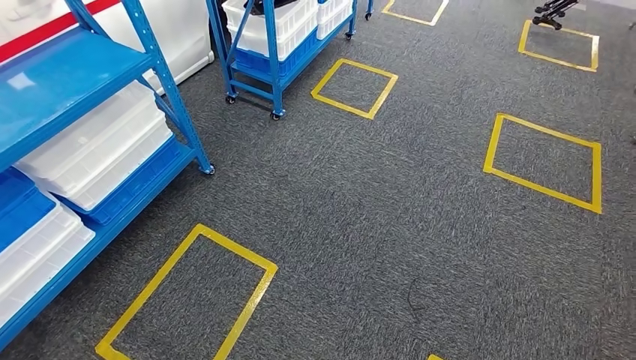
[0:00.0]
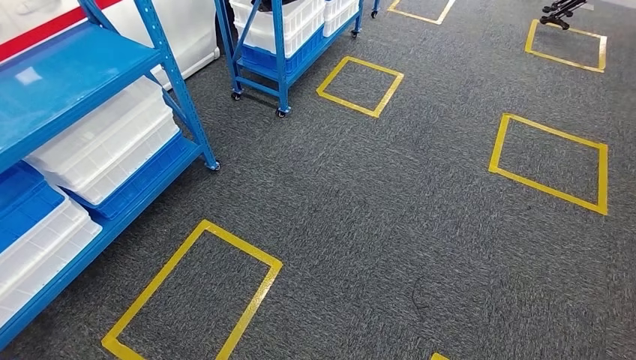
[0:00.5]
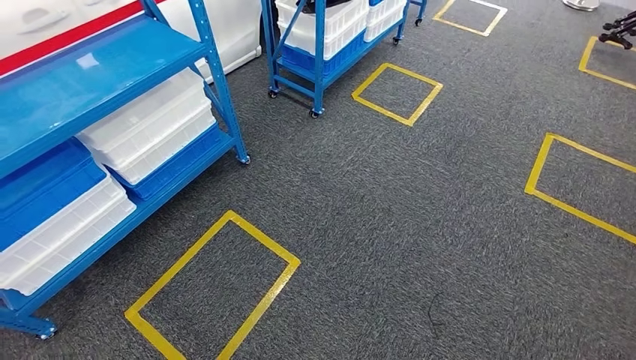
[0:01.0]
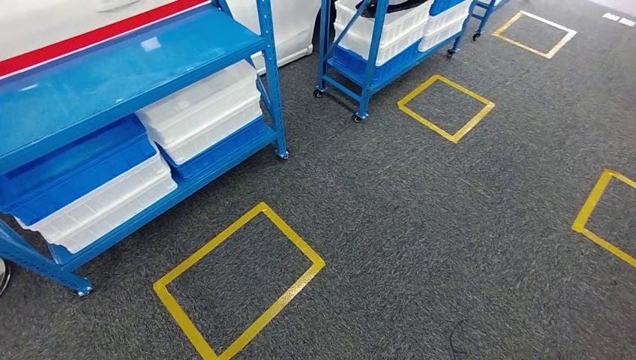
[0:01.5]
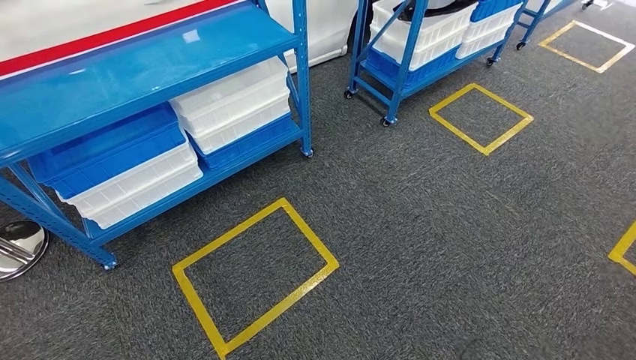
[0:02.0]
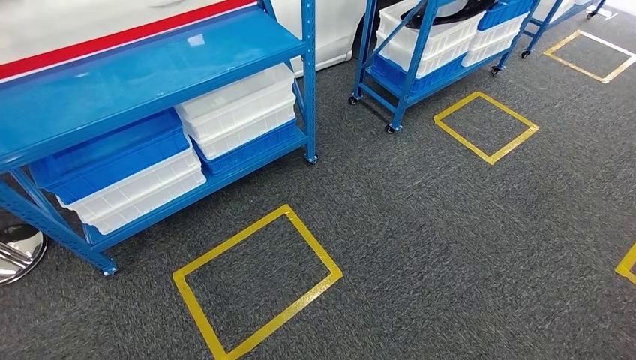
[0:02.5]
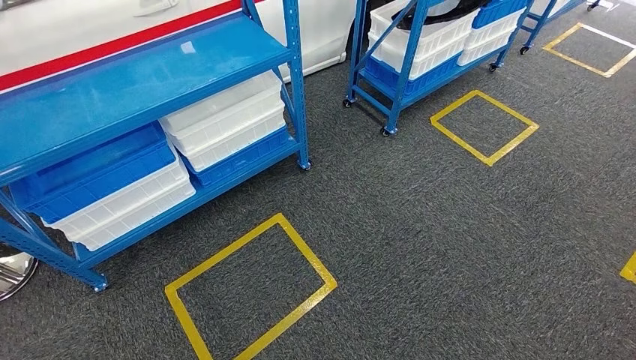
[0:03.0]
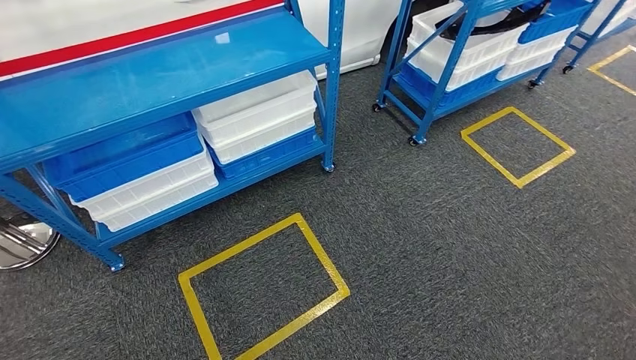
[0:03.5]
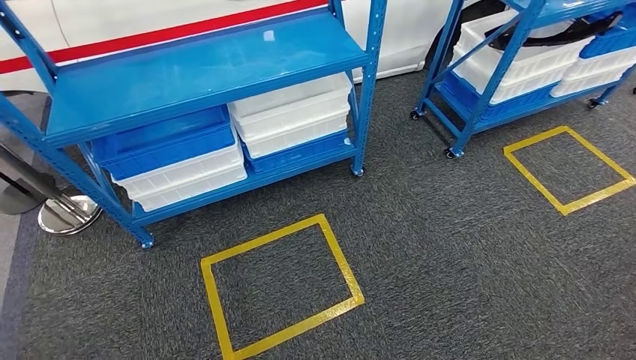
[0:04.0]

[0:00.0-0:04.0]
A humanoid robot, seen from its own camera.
Step, 0:00.0 to 0:04.0: Move to the initial position of the shelf.

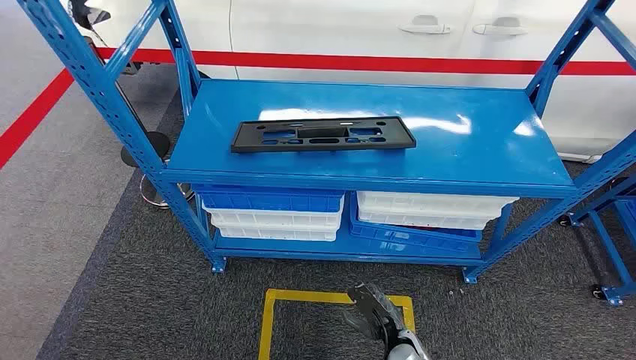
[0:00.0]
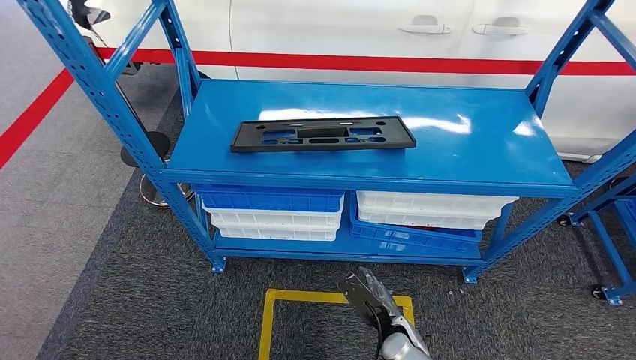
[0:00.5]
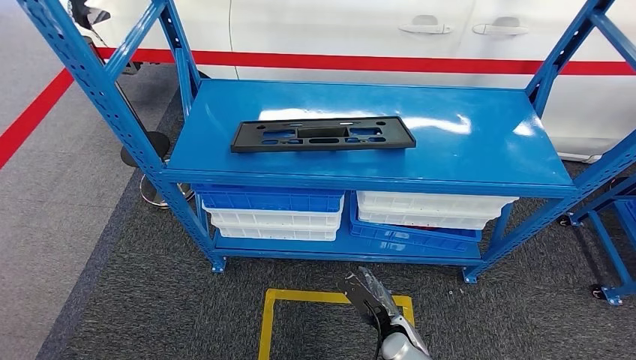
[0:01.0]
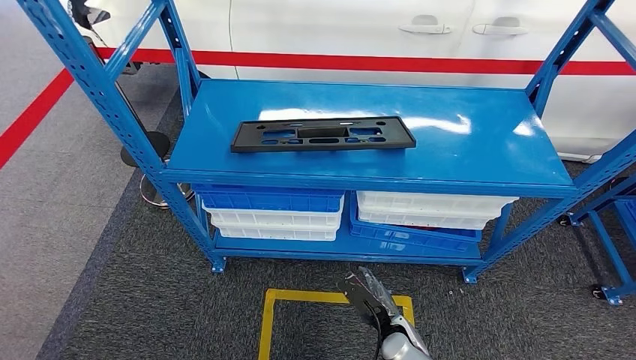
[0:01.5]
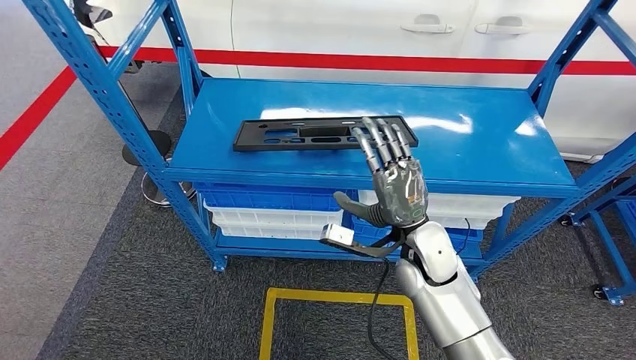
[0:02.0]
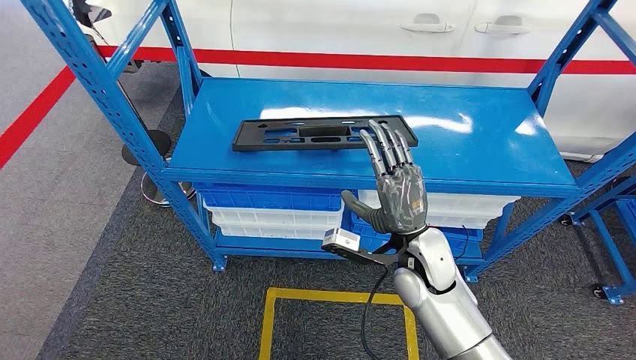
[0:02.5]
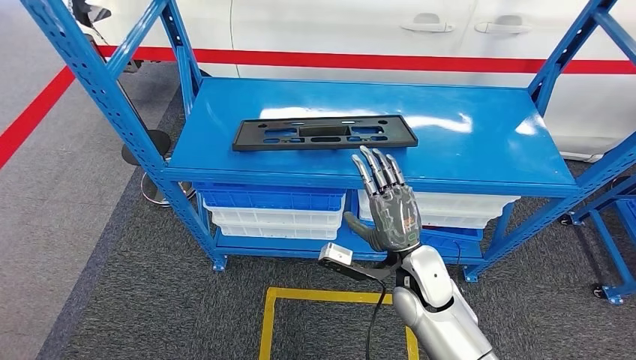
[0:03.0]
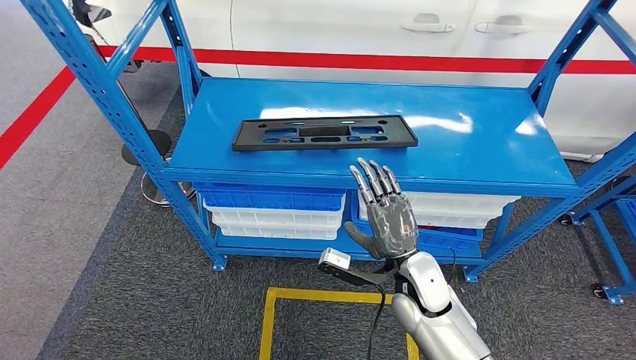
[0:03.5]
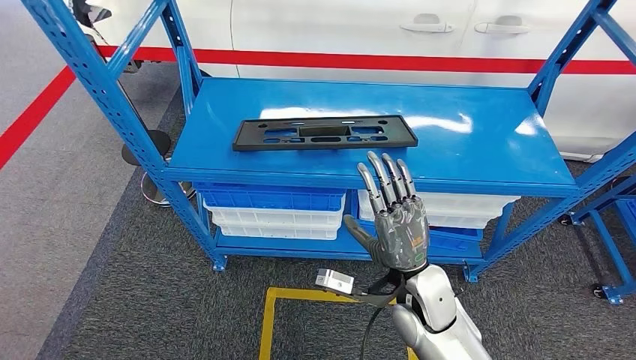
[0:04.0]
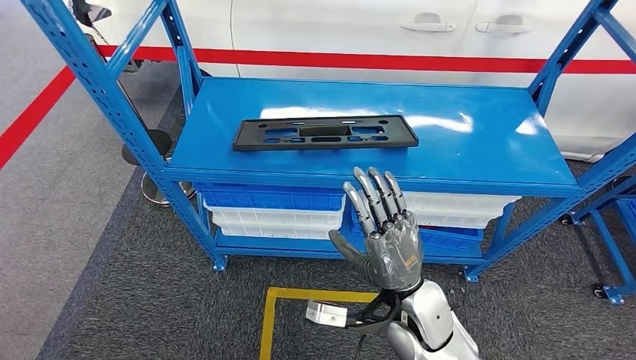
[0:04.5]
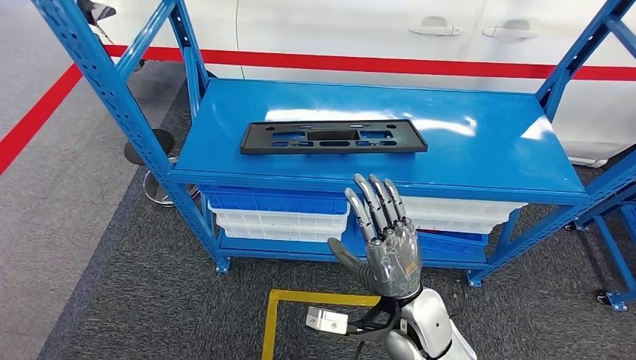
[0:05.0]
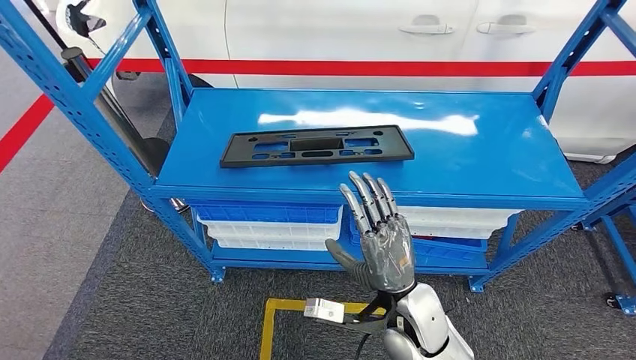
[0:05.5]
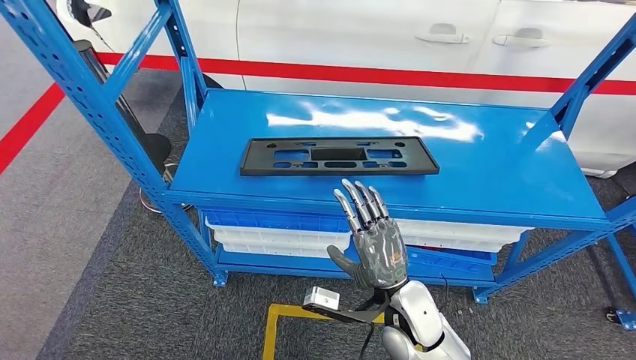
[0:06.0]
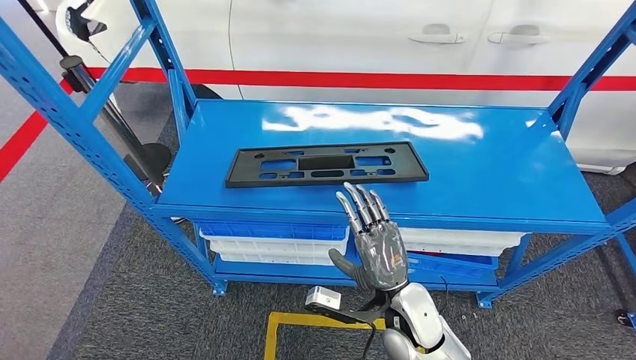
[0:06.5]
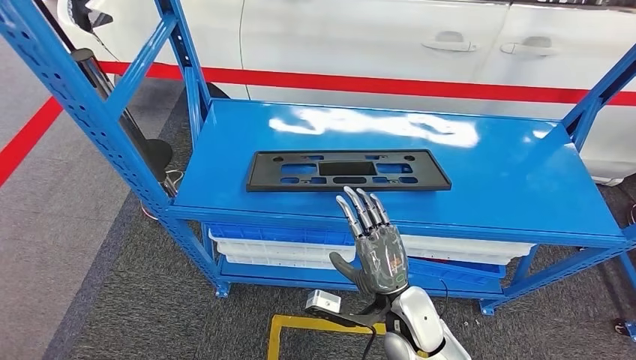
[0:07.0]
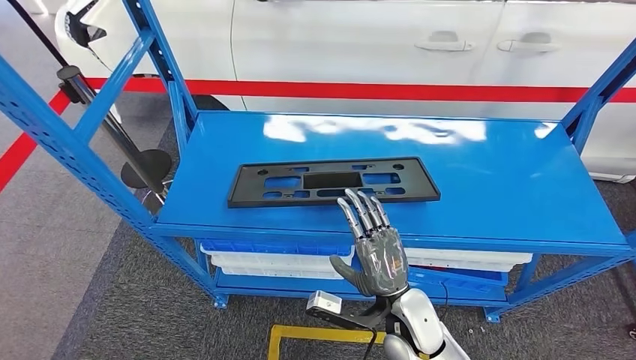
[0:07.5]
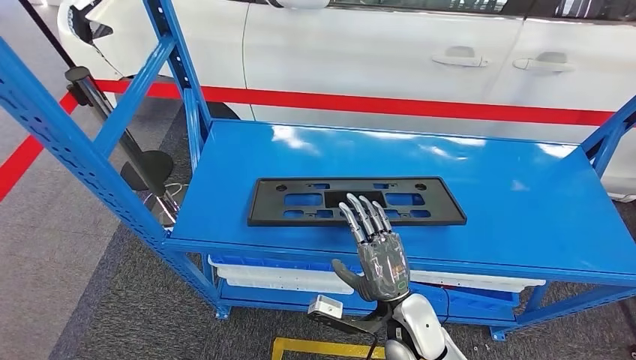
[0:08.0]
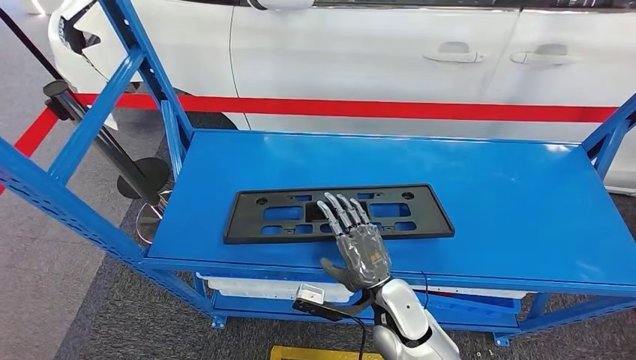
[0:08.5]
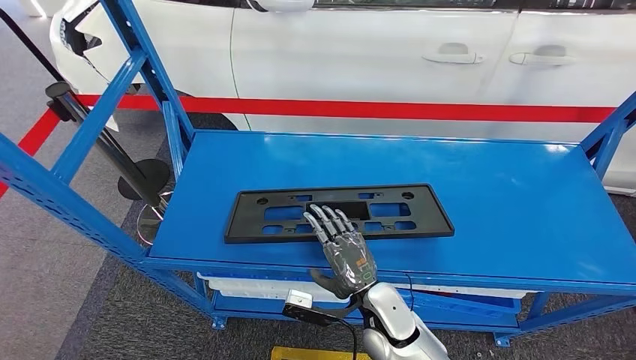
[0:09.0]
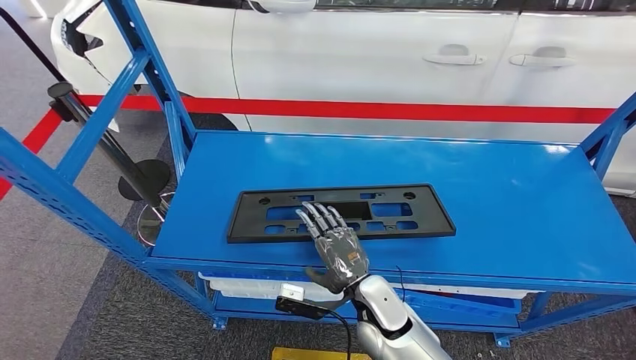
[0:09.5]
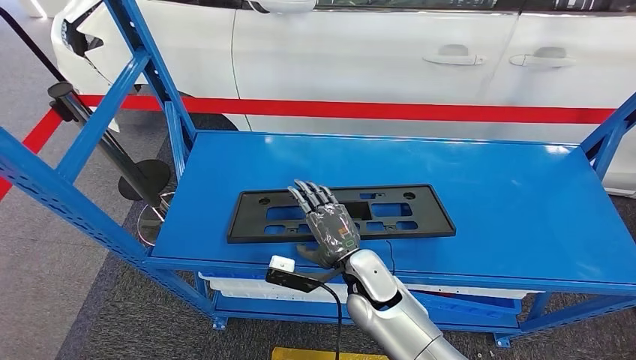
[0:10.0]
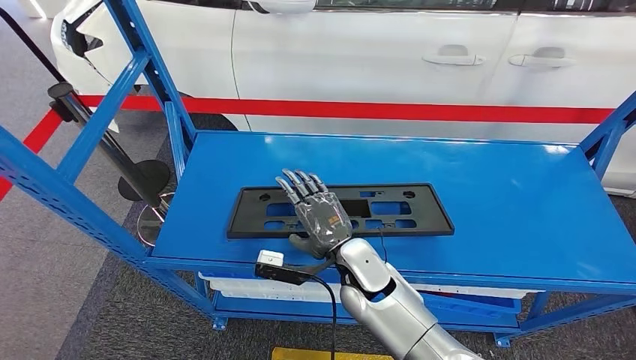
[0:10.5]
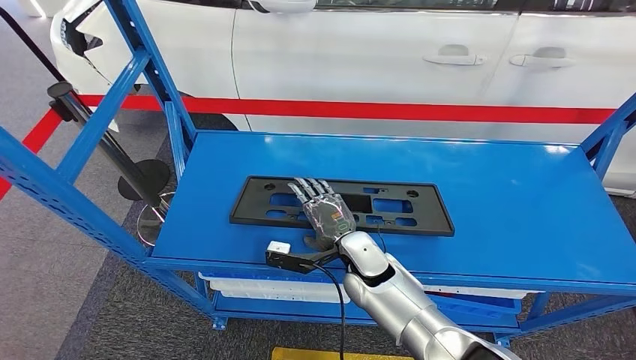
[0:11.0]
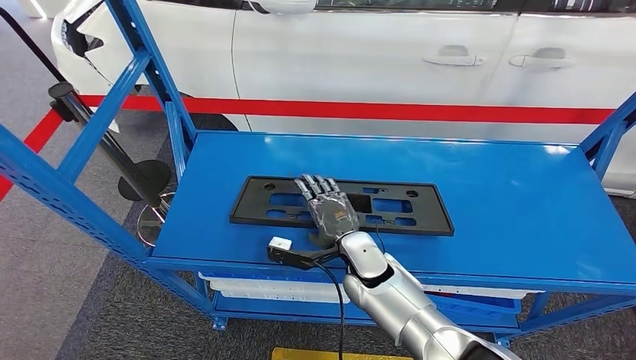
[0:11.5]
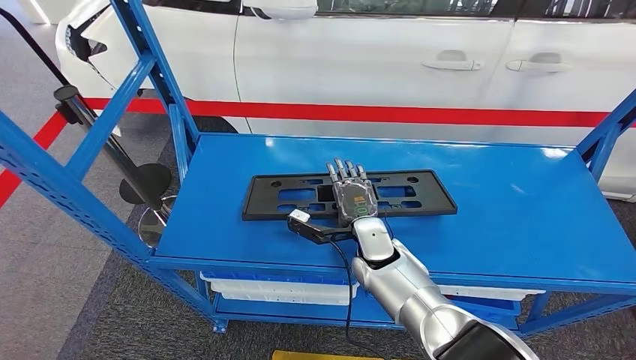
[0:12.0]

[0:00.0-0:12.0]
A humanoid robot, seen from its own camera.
0:02.0 to 0:04.0: The right hand goes some 5 cm backward.

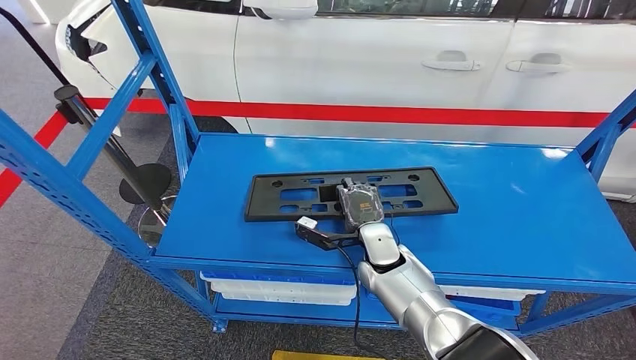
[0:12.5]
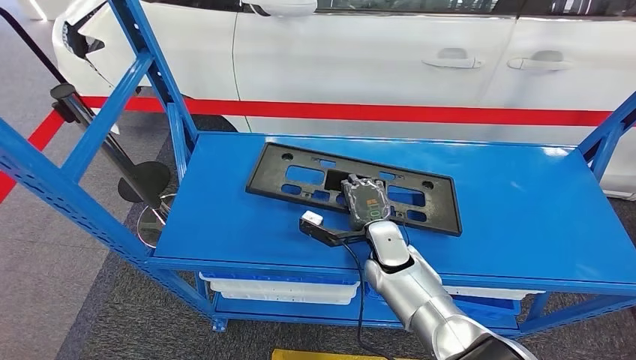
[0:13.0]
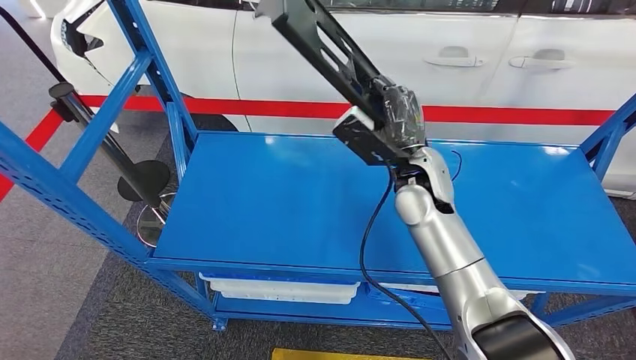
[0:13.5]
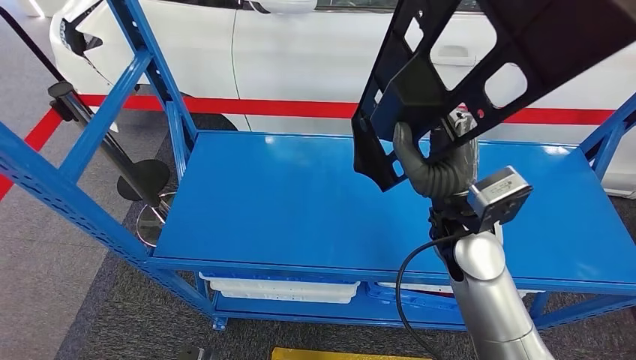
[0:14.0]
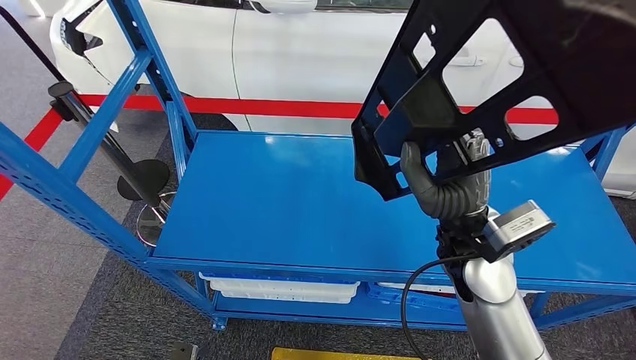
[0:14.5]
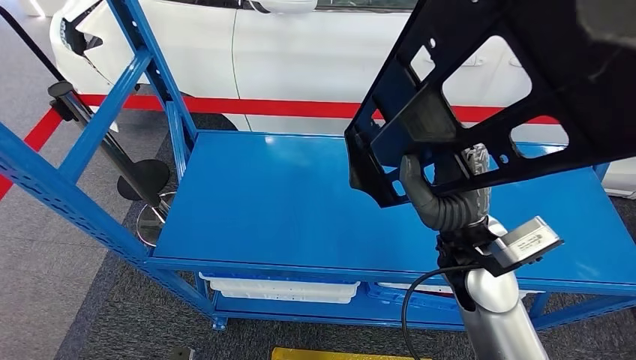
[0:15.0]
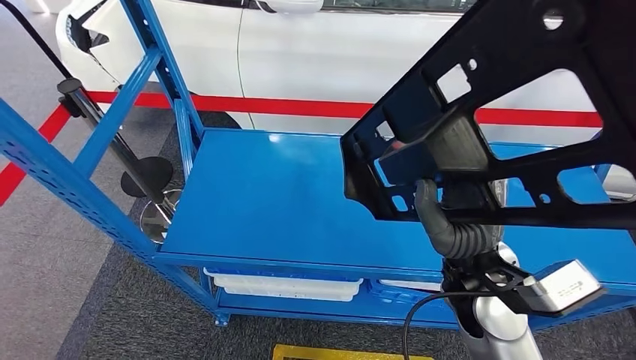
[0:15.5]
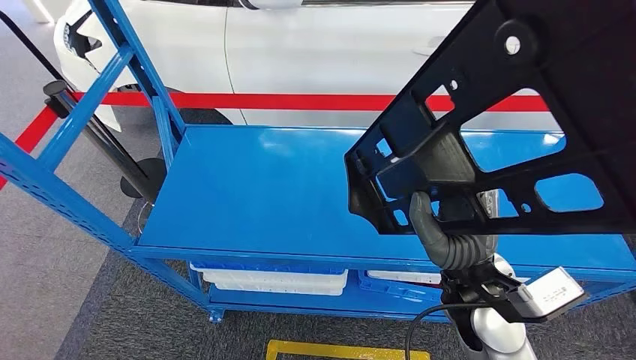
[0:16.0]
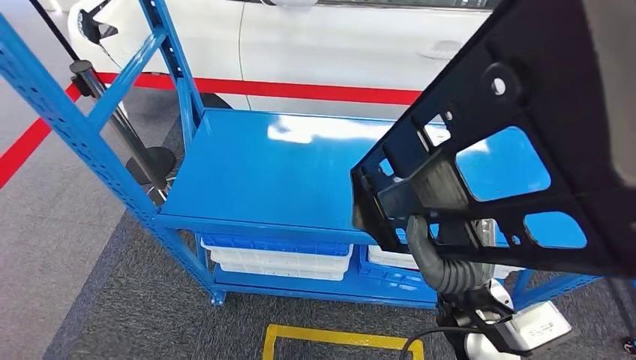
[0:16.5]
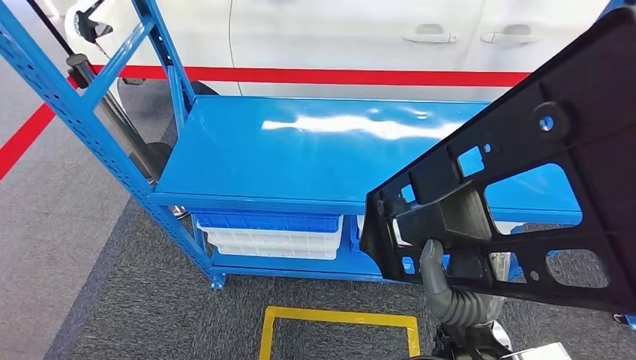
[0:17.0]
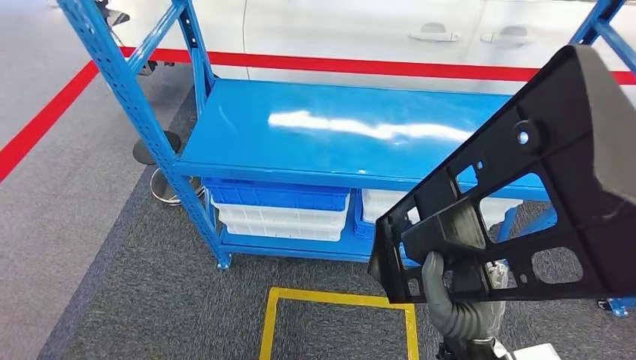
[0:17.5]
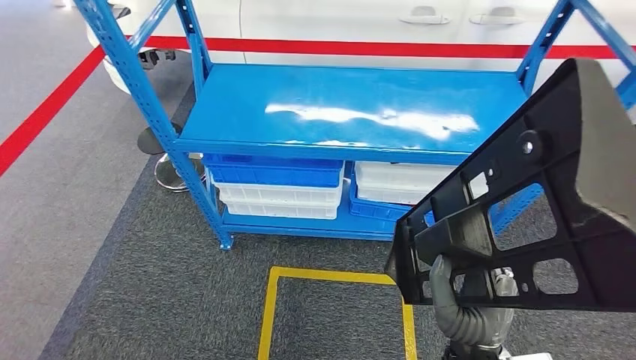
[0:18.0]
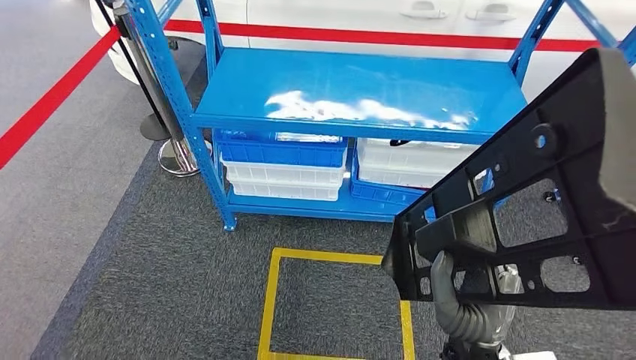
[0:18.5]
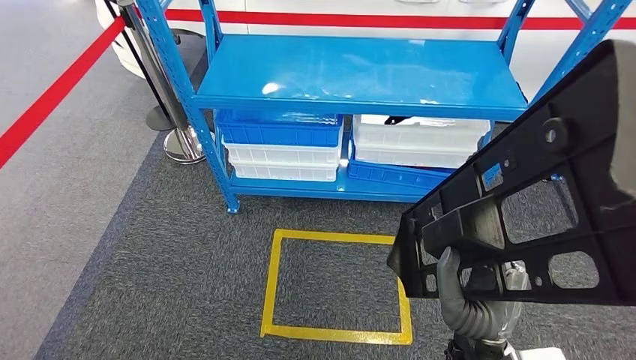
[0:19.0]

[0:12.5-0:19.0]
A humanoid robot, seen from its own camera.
Step, 0:12.5 to 0:17.5: Pick up the large material from the shelf.
